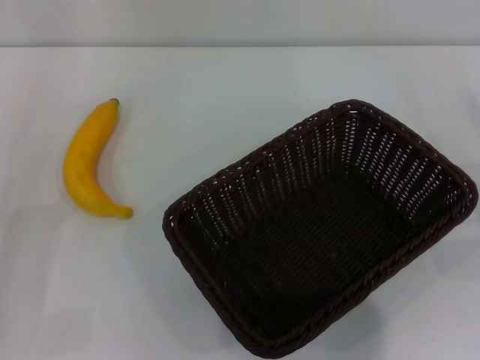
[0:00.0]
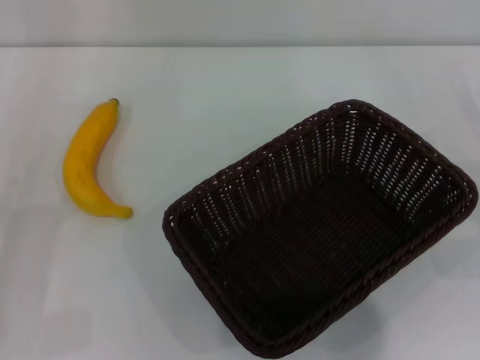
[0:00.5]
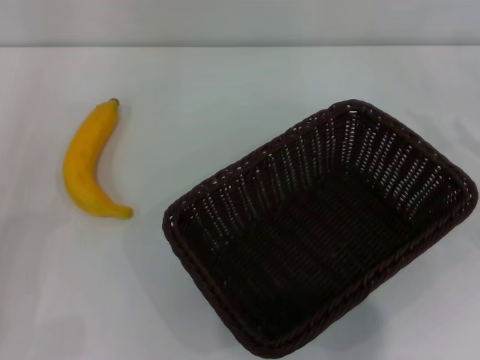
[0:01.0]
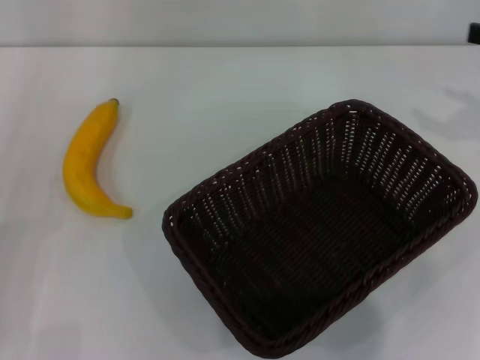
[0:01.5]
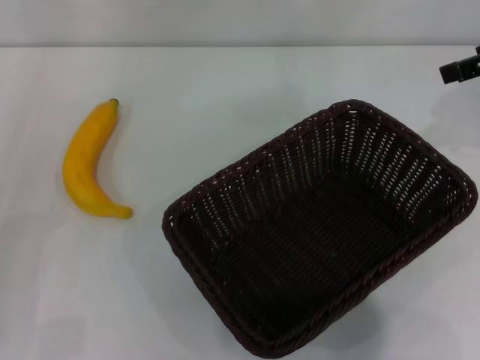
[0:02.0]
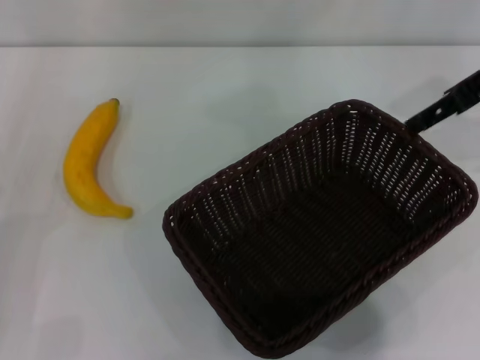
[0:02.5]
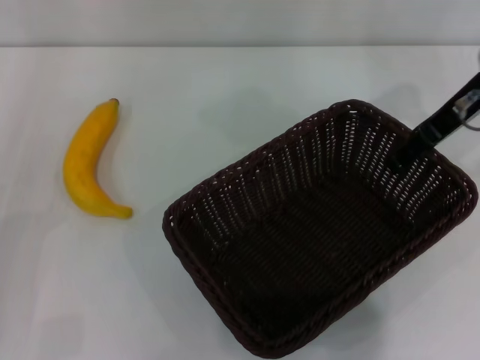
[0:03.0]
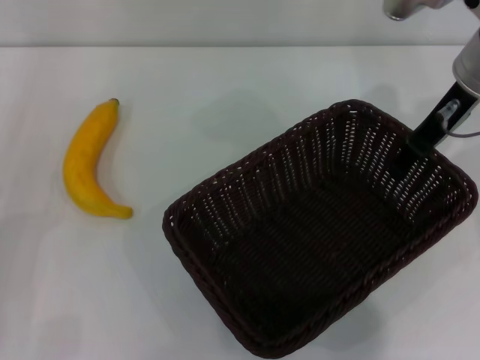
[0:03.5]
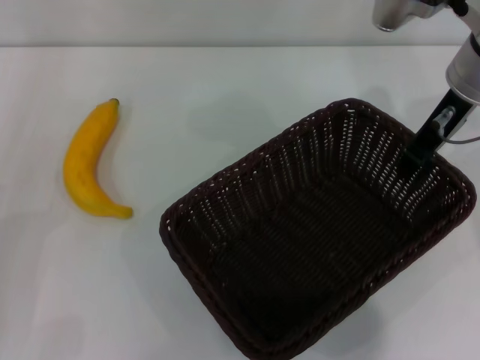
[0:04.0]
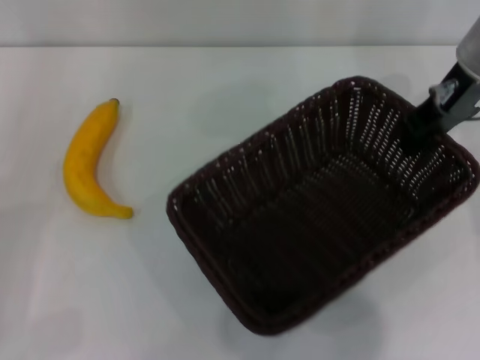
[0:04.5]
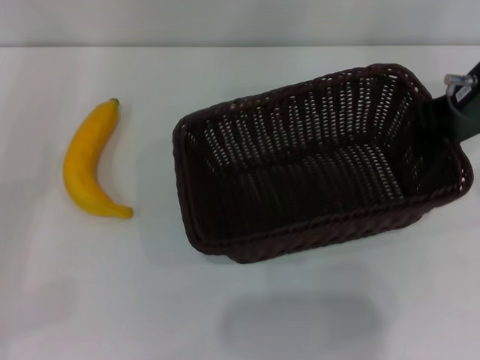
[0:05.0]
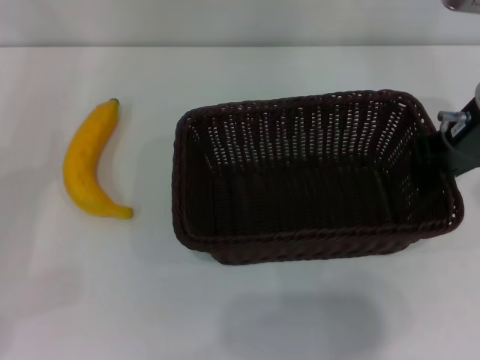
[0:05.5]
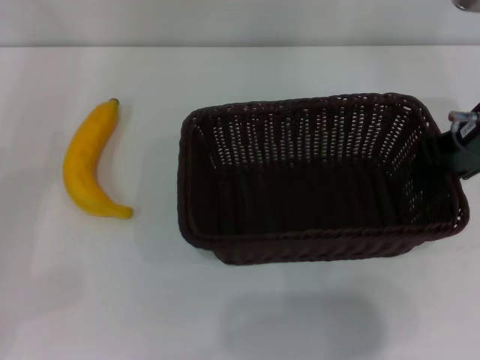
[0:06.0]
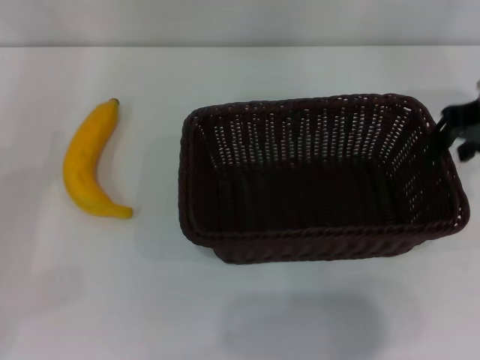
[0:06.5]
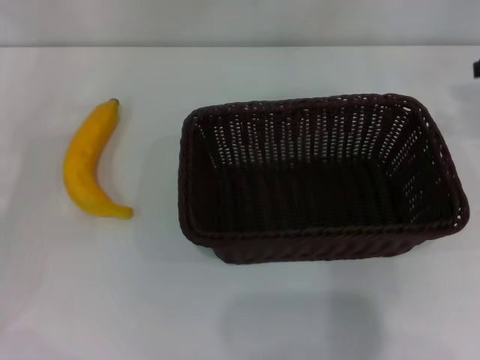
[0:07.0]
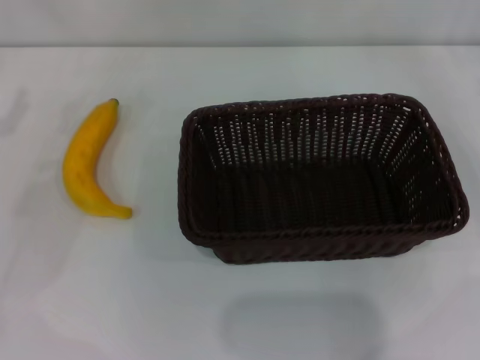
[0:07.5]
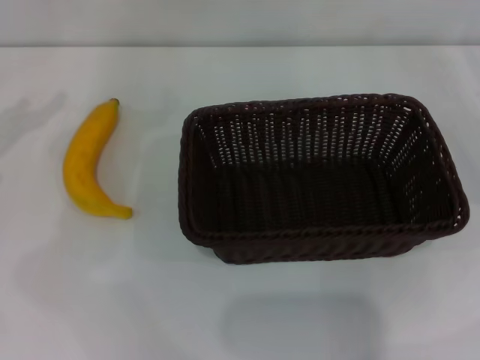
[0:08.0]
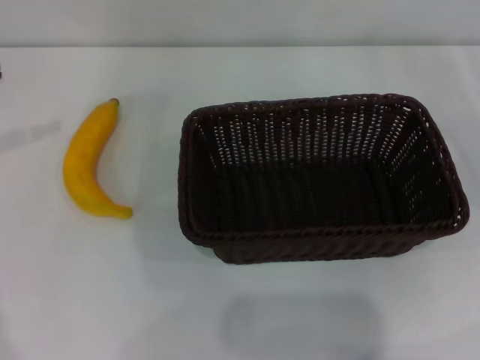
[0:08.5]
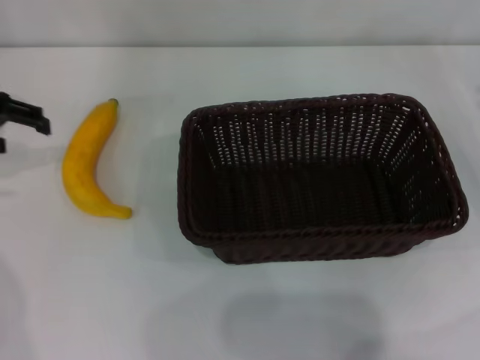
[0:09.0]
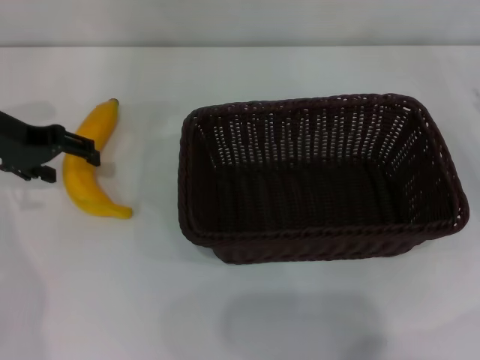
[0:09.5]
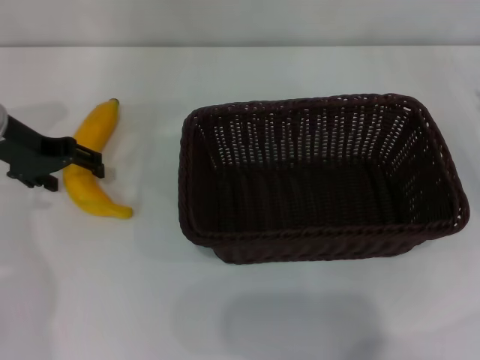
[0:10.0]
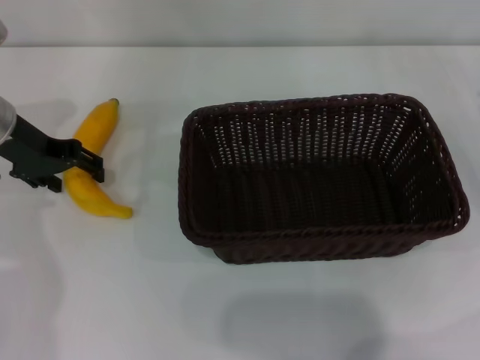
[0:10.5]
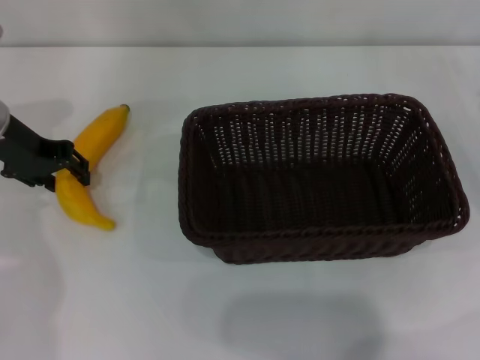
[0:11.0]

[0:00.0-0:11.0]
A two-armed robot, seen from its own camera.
Step, 0:00.0 to 0:04.0: Pick up the dark basket with the right gripper.
Step, 0:04.5 to 0:06.5: Place the dark basket in the center of view with the right gripper.
0:00.0 to 0:02.0: The right gripper travels upward and forward by some 25 cm.
0:02.0 to 0:03.5: The right gripper shifts approximately 15 cm to the left and downward.
0:03.5 to 0:05.5: The left gripper heads forward, covering approximately 5 cm, while the right gripper closes up.
0:05.5 to 0:07.5: The right gripper travels to the right by roughly 20 cm; the left gripper heads forward, covering some 5 cm.
0:07.5 to 0:09.0: The left gripper heads upward and forward, covering approximately 10 cm.
0:09.0 to 0:11.0: The left gripper moves to the right and downward, some 10 cm, and closes up.

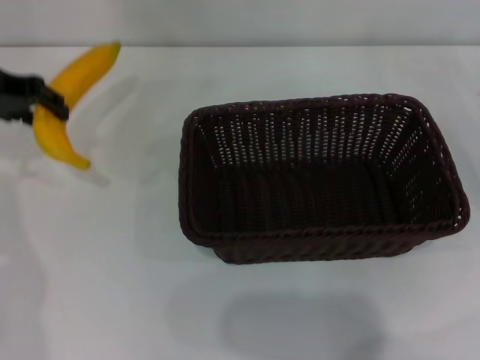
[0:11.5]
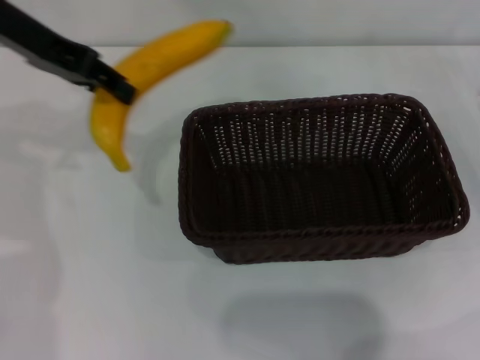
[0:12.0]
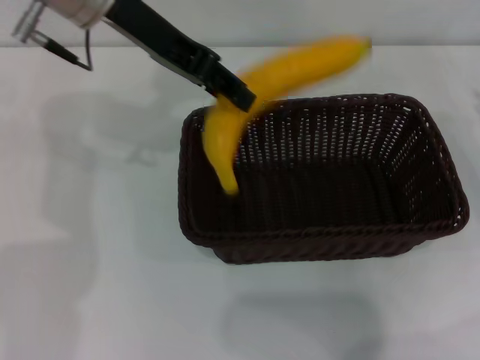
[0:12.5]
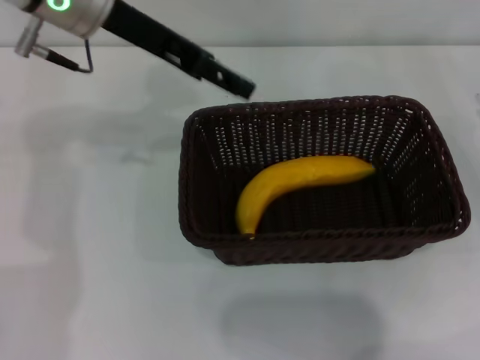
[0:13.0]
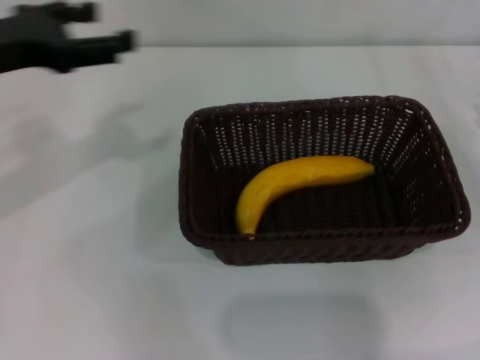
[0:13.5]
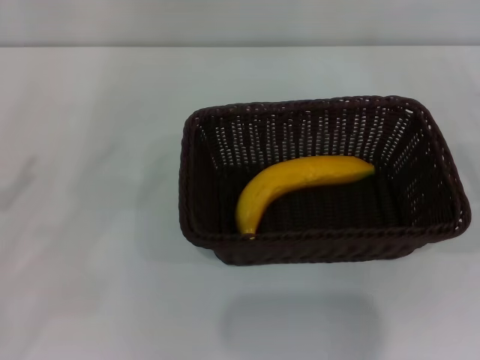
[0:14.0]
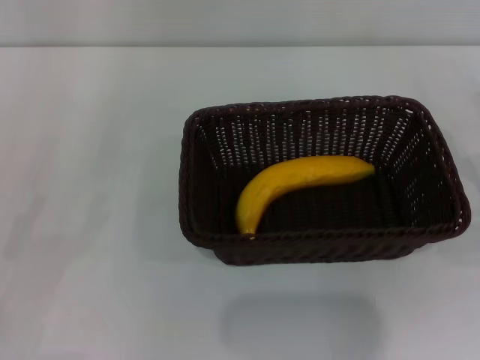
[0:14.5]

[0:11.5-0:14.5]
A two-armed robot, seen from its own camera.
Step, 0:11.5 to 0:12.5: Place the banana into the dark basket with the left gripper.
0:11.5 to 0:13.0: The left gripper heads to the right, covering some 15 cm, and opens its fingers.
0:13.0 to 0:14.5: The left gripper is displaced backward, downward and to the left by some 40 cm. Meanwhile the right gripper moves backward, approximately 5 cm.

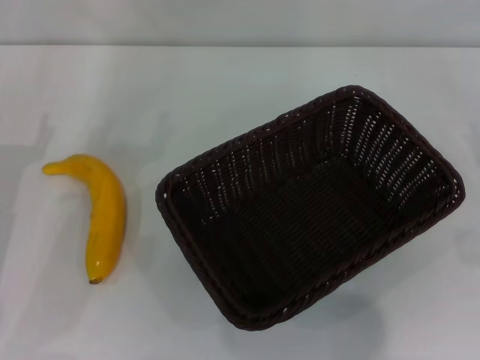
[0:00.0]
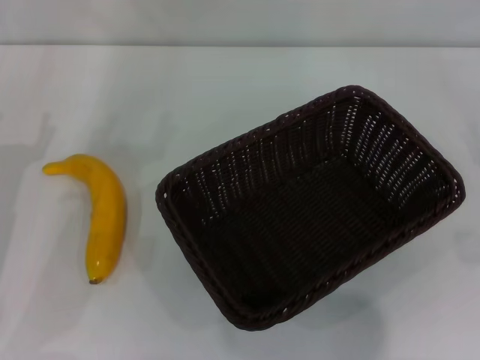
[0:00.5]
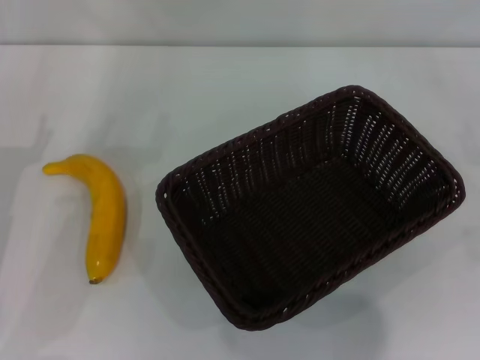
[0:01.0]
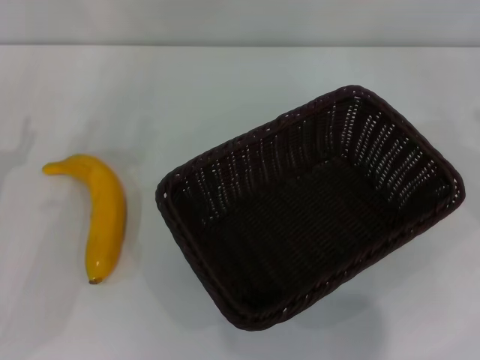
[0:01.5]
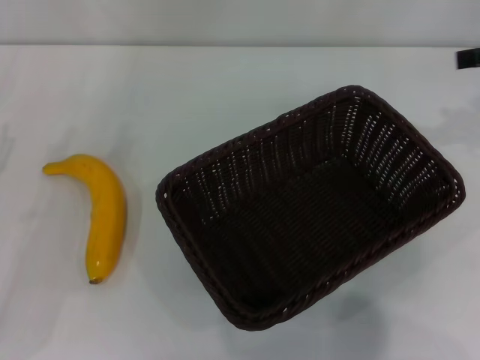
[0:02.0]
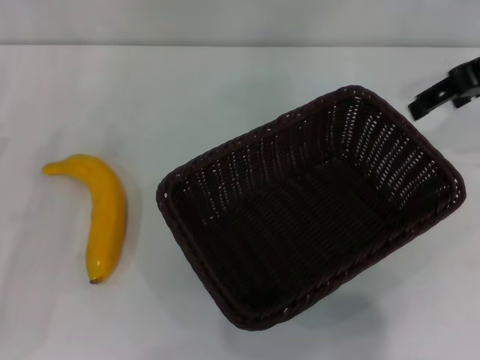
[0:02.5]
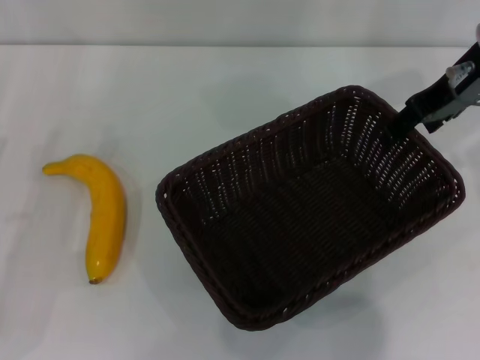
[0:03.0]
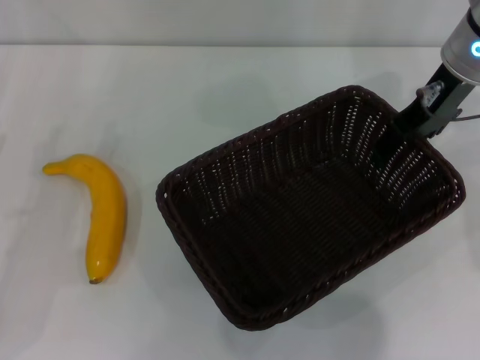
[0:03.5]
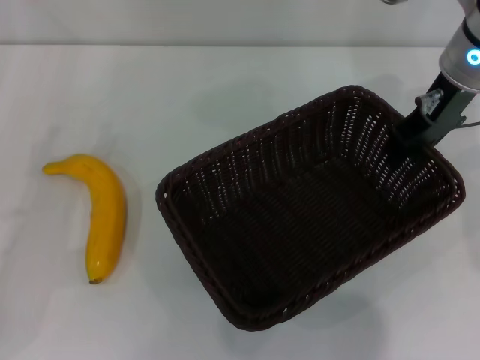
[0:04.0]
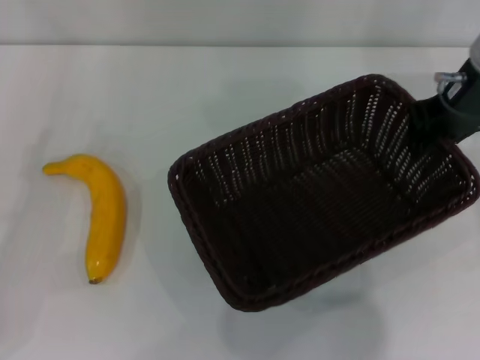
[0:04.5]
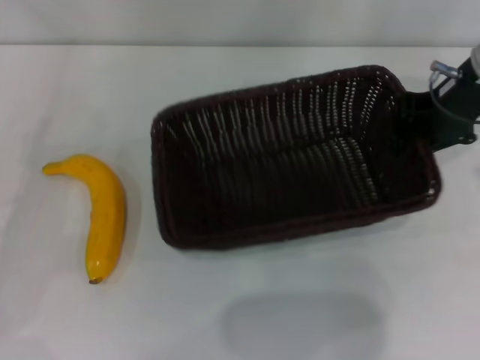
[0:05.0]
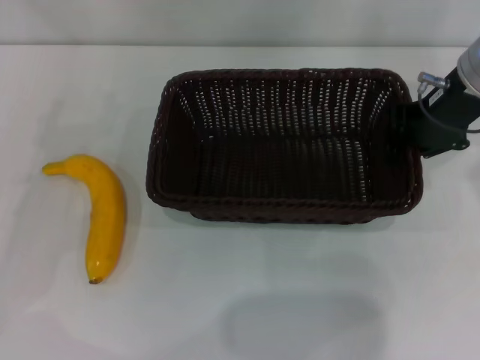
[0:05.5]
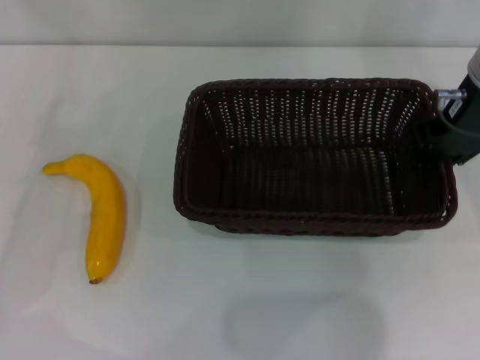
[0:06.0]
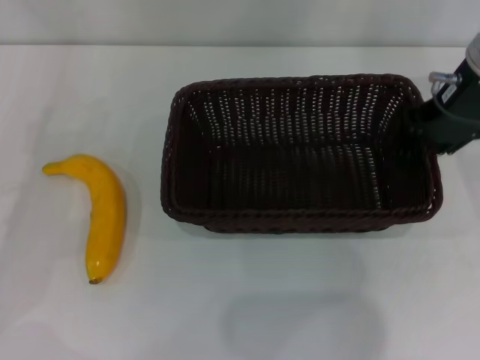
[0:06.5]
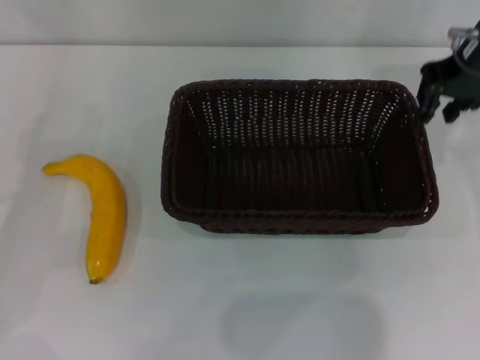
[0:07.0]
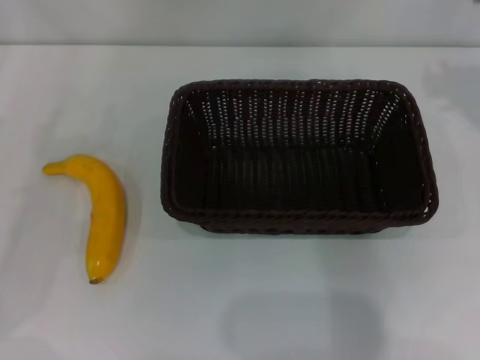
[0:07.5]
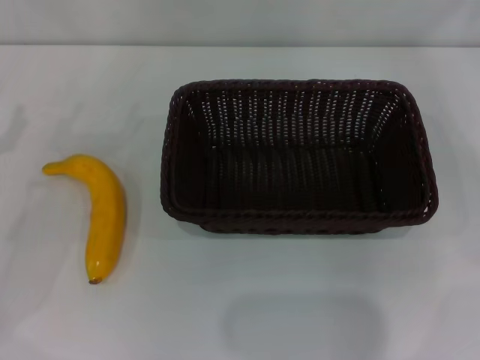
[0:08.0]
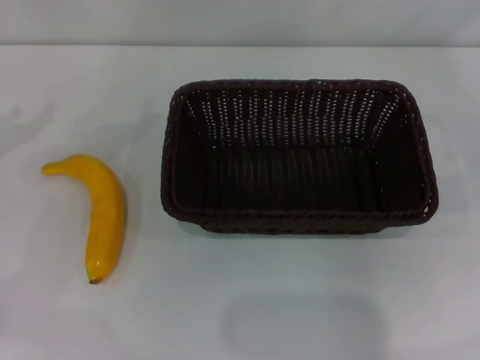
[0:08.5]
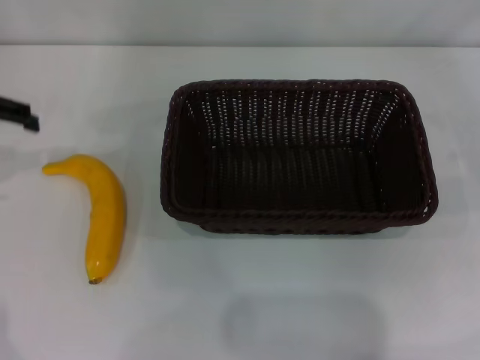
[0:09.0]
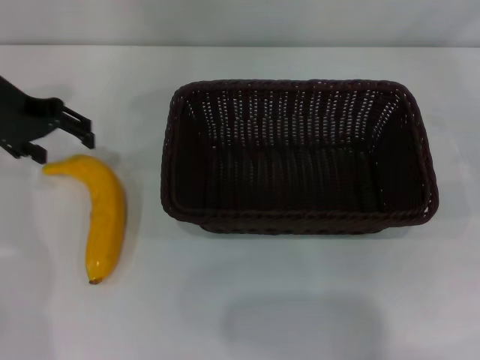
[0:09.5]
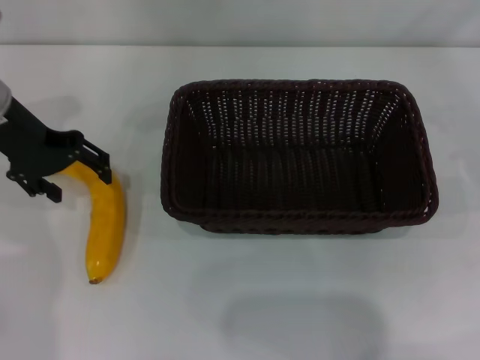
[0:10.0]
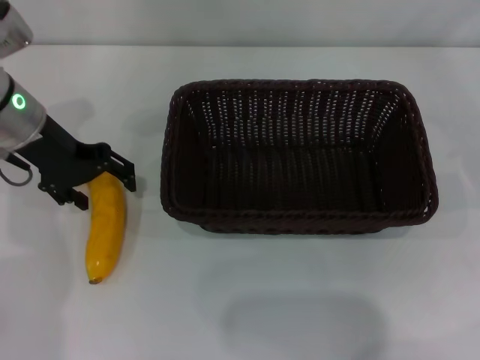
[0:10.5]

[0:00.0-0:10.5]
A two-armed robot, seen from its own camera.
Step, 0:00.0 to 0:04.5: Pick up the dark basket with the right gripper.
Step, 0:05.0 to 0:07.0: Place the dark basket in the center of view with the right gripper.
0:02.0 to 0:04.0: The right gripper heads to the left, covering approximately 15 cm, and closes up.
0:06.5 to 0:08.5: The right gripper moves to the right and downward, roughly 25 cm, and opens its fingers. Meanwhile the left gripper travels upward by roughly 5 cm.
0:08.5 to 0:10.5: The left gripper shifts approximately 15 cm to the right and forward.
